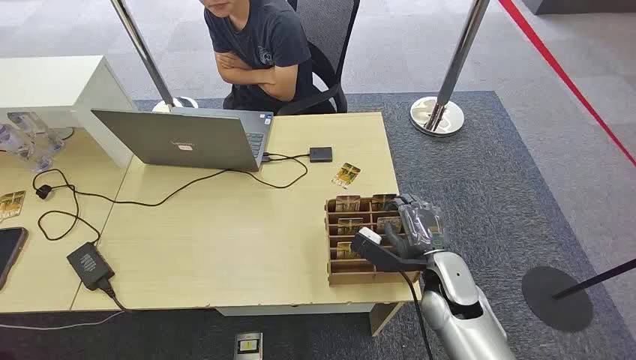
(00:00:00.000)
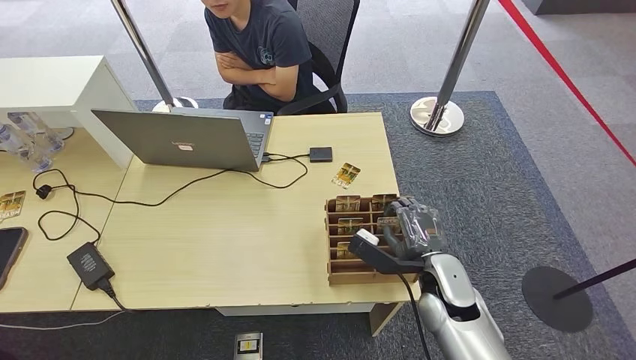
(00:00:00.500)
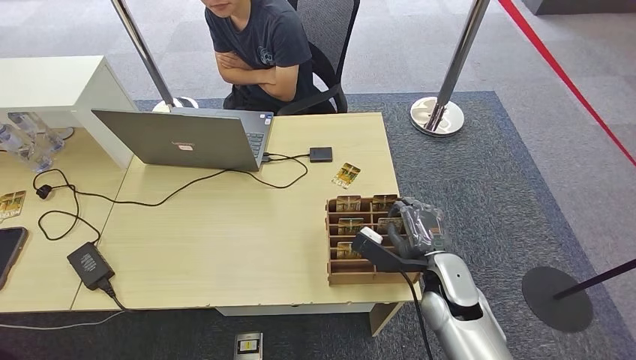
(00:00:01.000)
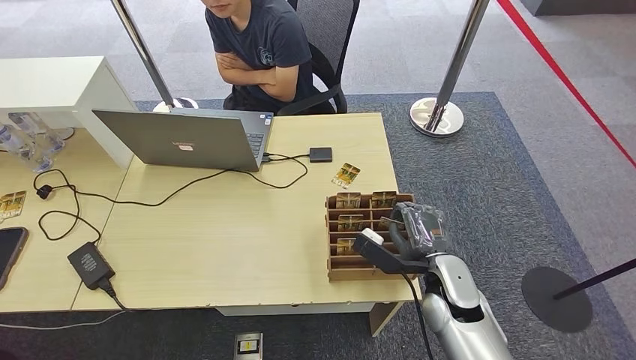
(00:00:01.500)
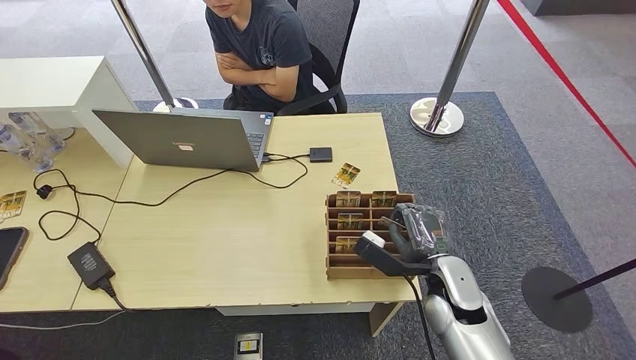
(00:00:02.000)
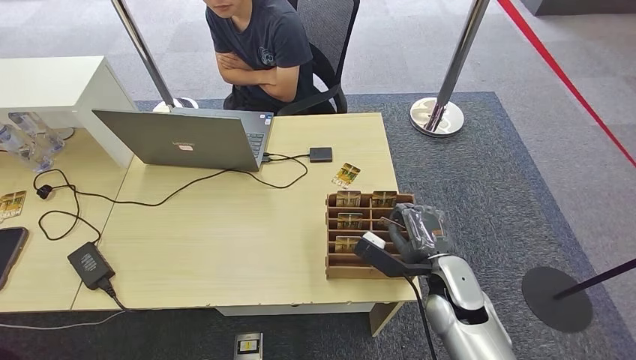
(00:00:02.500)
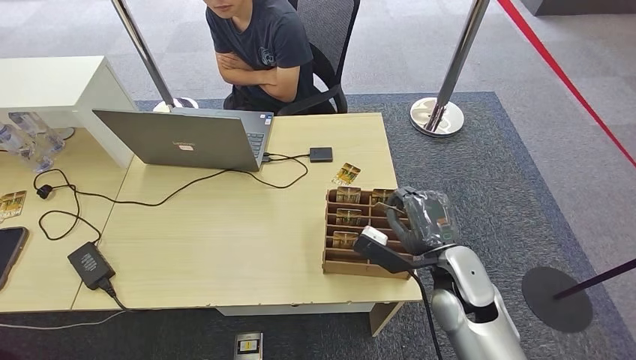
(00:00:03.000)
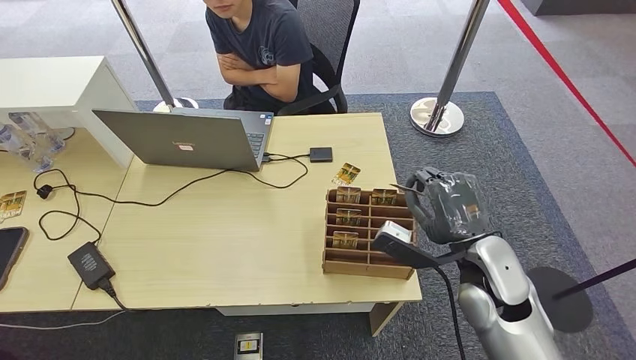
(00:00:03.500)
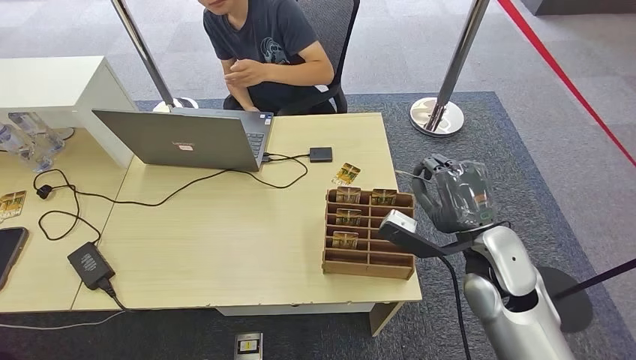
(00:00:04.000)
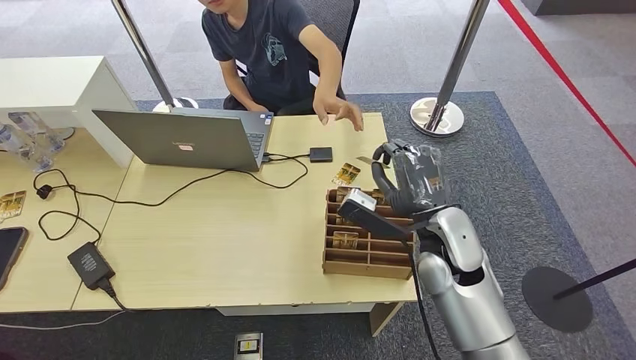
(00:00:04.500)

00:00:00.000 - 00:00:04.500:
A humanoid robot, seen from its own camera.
Step, 00:00:00.000 - 00:00:04.500: Pick up the key card from the card box.
00:00:02.000 - 00:00:04.500: The right hand goes some 10 cm upward.
